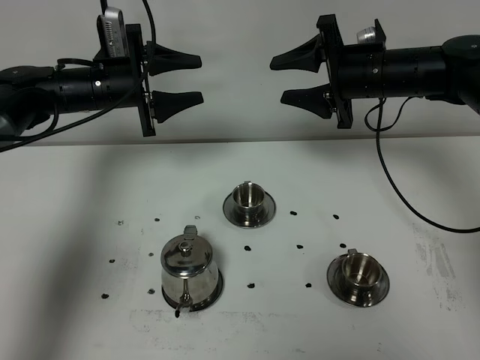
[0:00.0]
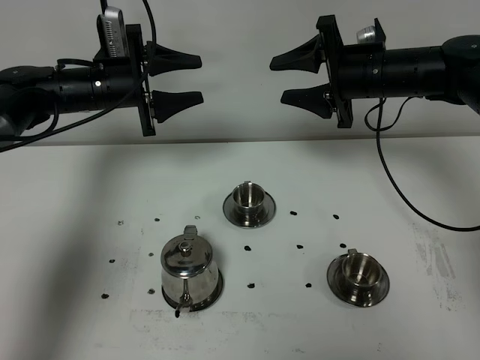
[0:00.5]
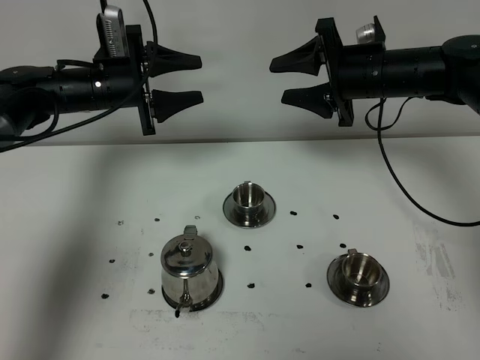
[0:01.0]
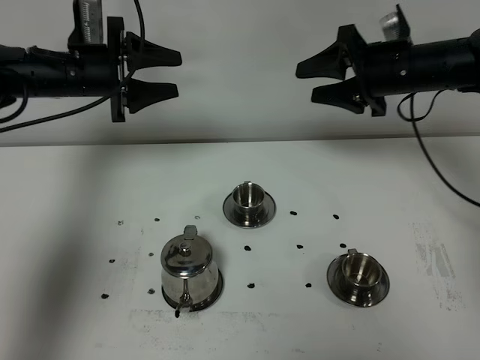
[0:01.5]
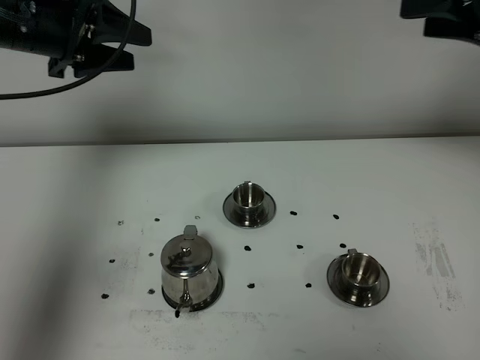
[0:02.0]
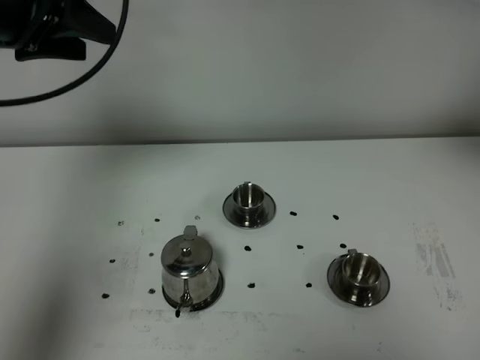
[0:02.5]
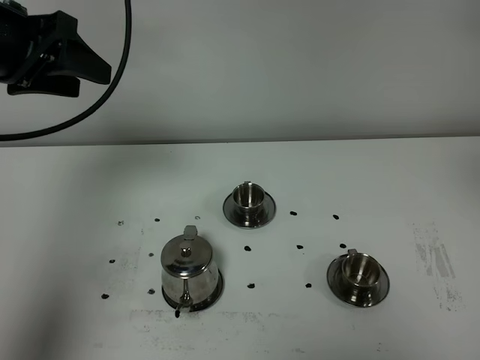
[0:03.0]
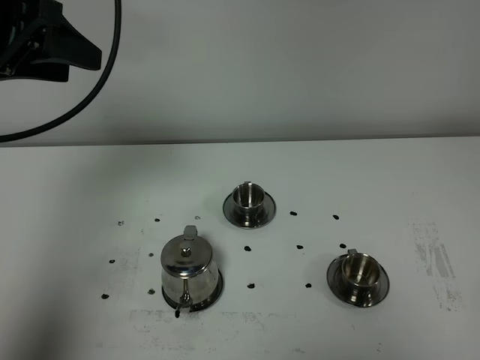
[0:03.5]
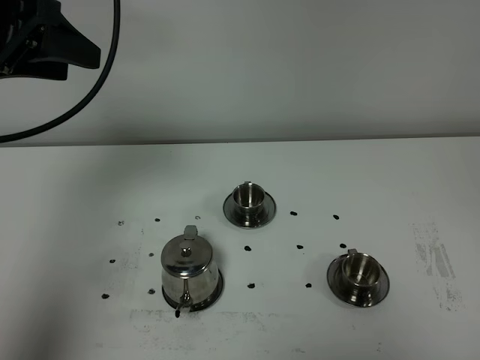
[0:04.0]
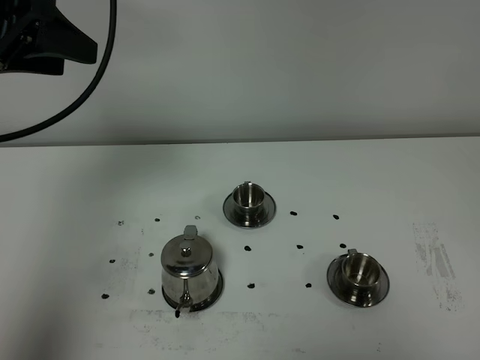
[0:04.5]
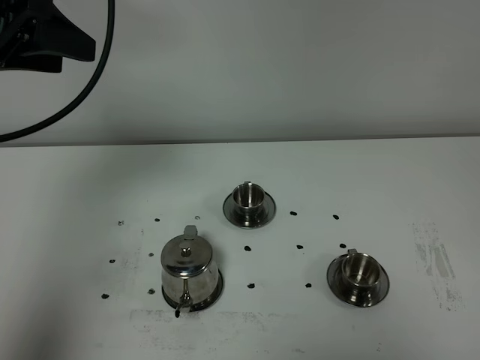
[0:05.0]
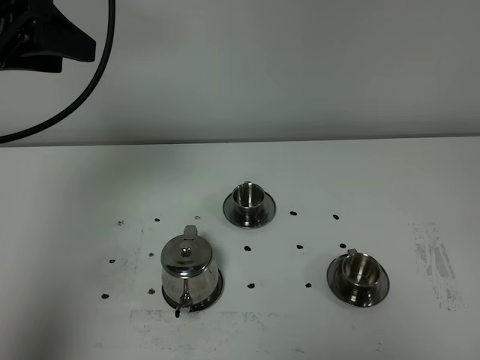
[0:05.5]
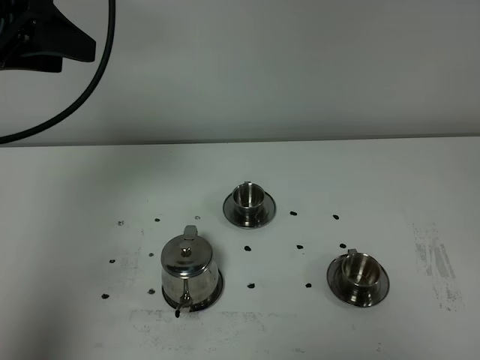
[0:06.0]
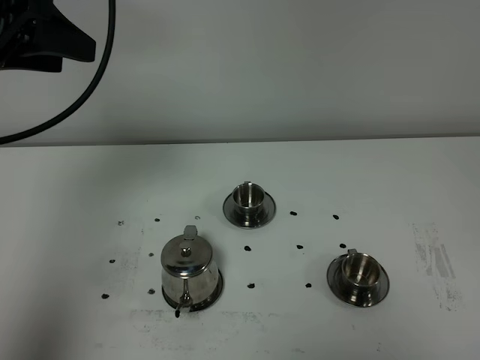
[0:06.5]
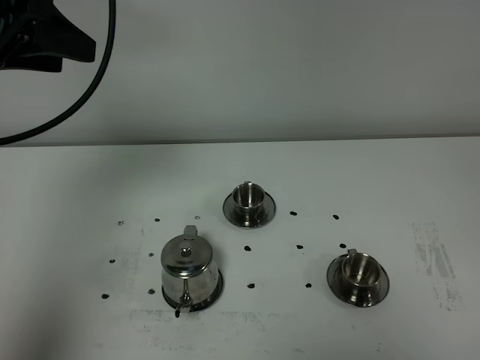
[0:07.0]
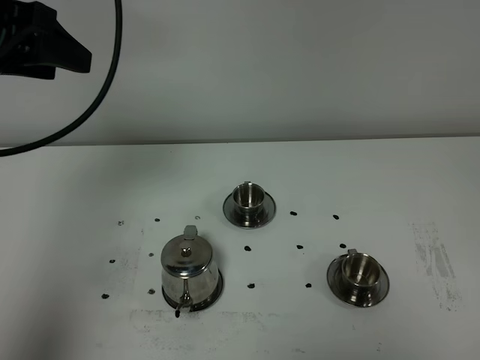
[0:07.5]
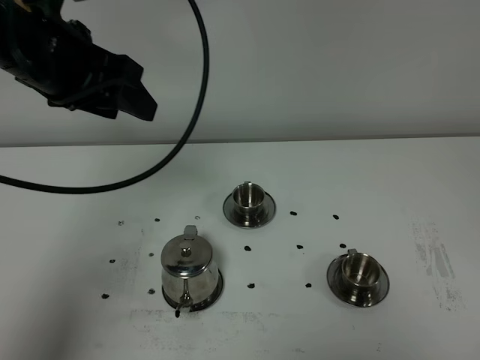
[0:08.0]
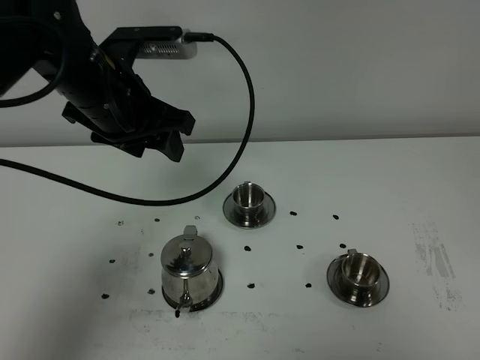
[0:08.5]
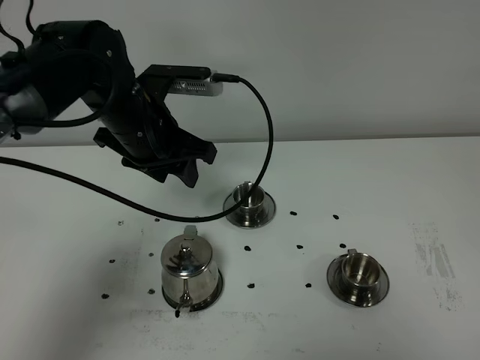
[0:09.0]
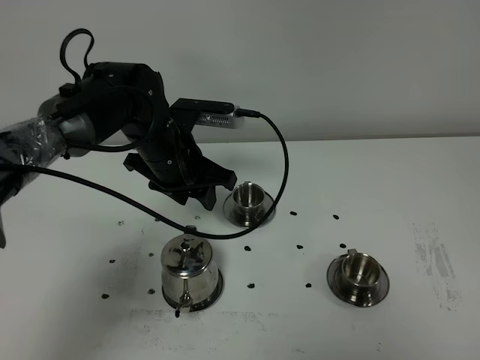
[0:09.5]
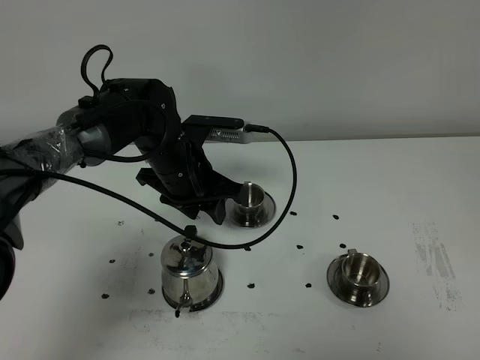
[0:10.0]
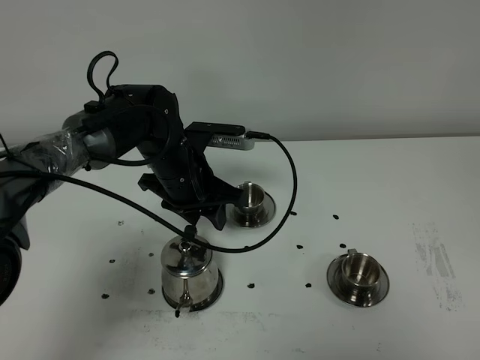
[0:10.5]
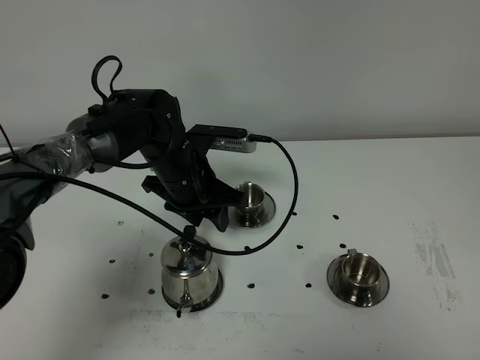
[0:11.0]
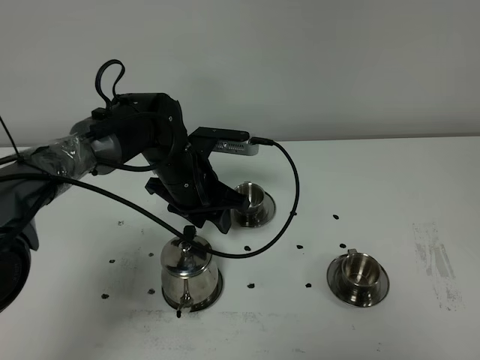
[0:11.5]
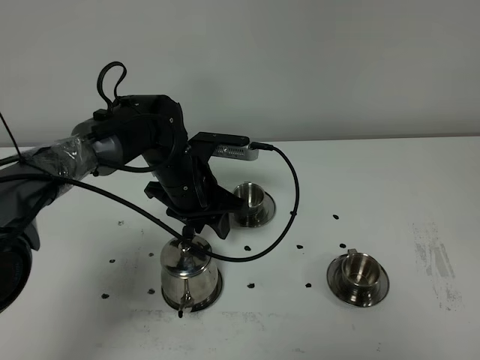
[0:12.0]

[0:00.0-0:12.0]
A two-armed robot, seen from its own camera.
Task of the whole recording: grasp the stainless steel teapot and pour the tea into the two stainless steel teacups one by one, put the stainless steel teapot back in its original place.
0:00.0 to 0:02.0: The left gripper travels upward and backward by roughly 15 cm, while the right gripper goes some 20 cm upward, to the right and backward.
0:02.0 to 0:04.0: The left gripper heads backward and upward, covering roughly 10 cm; the right gripper is displaced backward by roughly 40 cm.
0:04.0 to 0:06.0: The grippers move only a little.
0:06.0 to 0:08.0: The left gripper is displaced to the right by approximately 5 cm.
0:08.0 to 0:10.0: The left gripper moves downward and to the right, some 20 cm.
0:10.0 to 0:12.0: The grippers stay close to where they were, moving slightly.

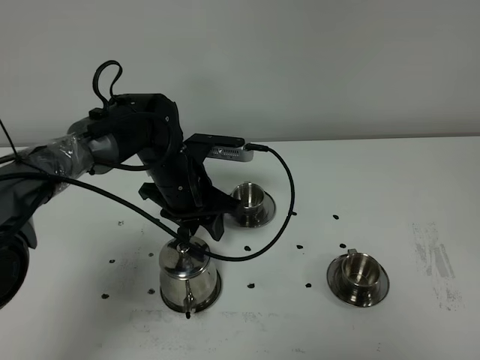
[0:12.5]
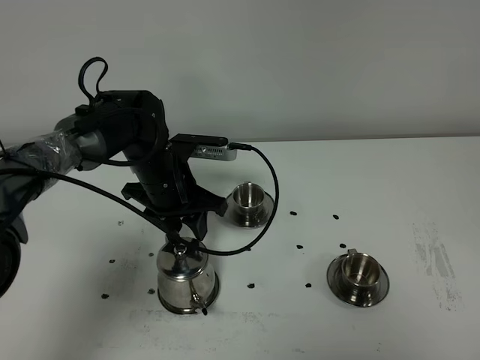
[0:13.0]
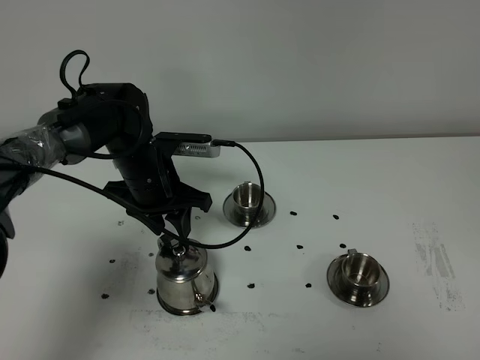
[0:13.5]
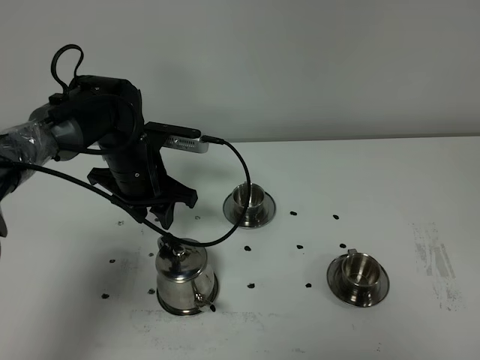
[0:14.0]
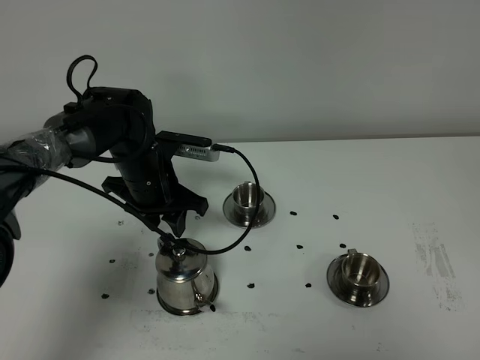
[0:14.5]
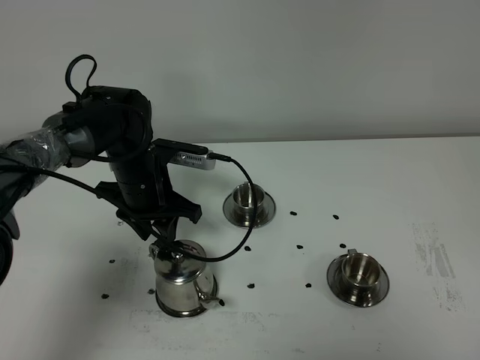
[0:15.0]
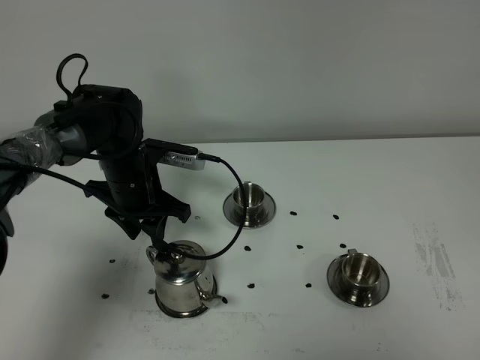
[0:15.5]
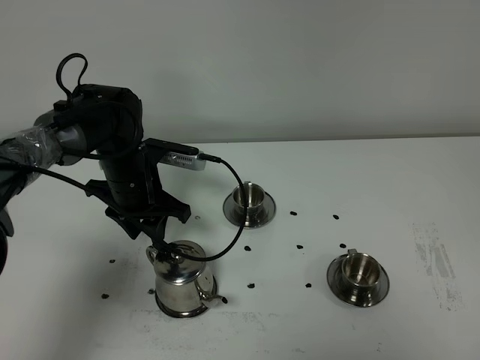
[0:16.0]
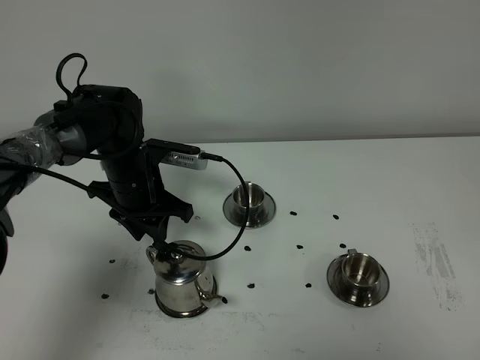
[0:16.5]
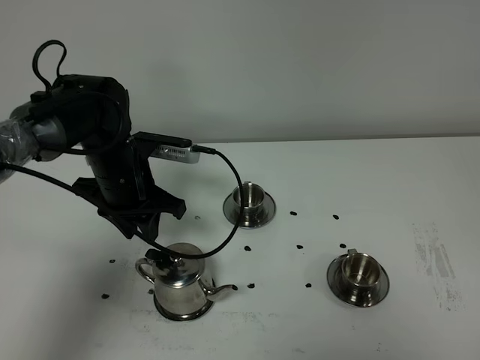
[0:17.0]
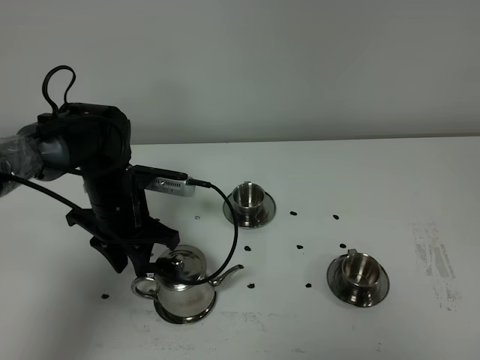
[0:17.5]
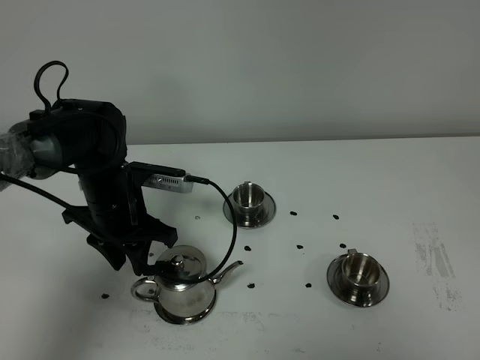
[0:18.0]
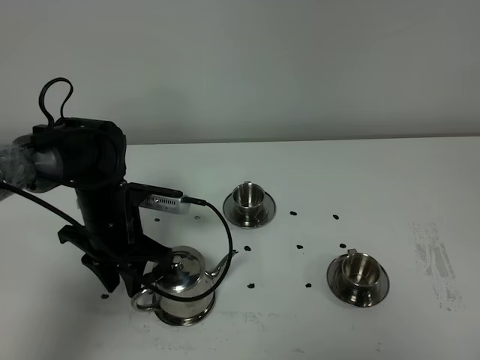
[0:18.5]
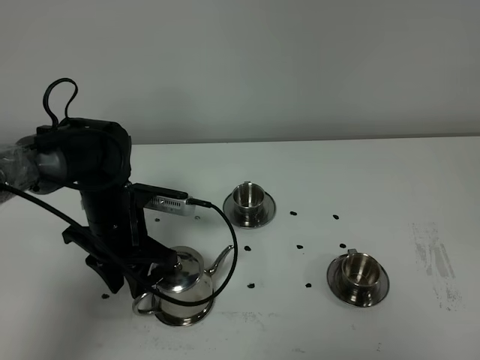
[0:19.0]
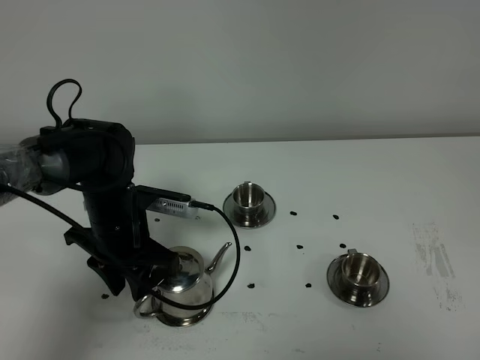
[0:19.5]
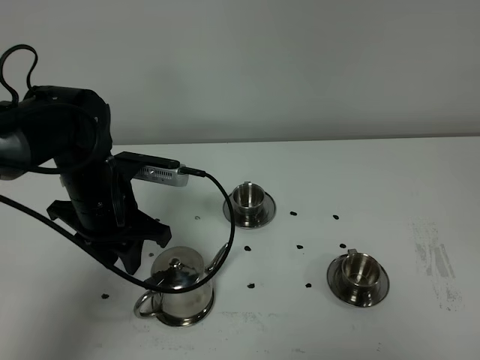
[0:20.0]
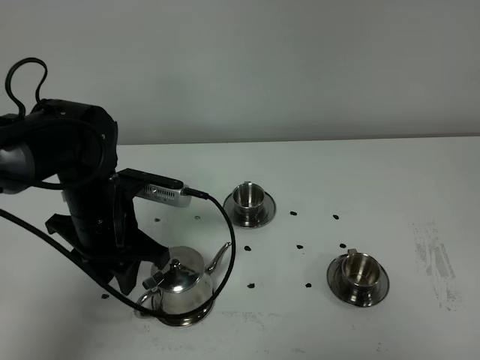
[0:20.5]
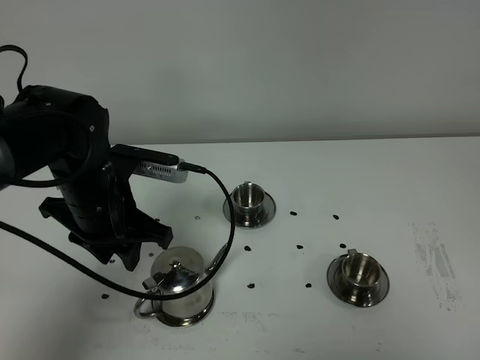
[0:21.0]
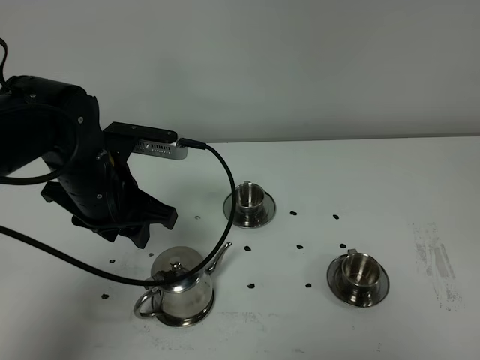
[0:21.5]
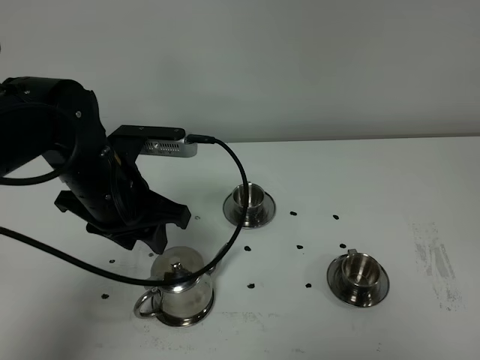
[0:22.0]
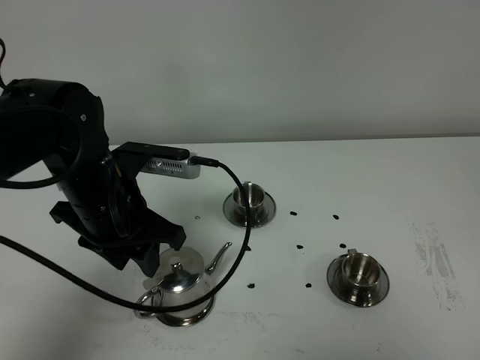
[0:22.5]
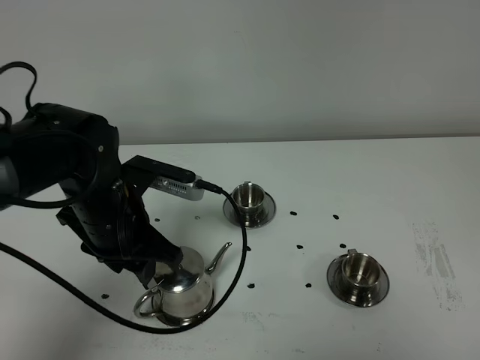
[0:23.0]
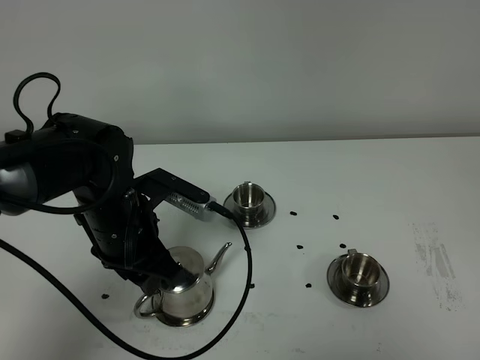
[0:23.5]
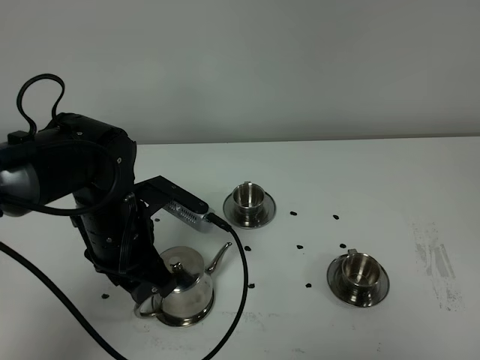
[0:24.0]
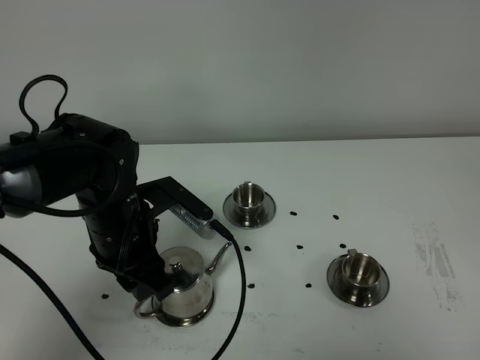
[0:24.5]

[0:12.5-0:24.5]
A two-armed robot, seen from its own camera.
Task of the whole recording: grasp the stainless steel teapot and pour the tea into the two stainless steel teacups one by one, put the stainless steel teapot back in its original place.
0:12.5 to 0:16.5: The grippers move only a little.
0:16.5 to 0:18.5: The left gripper is displaced backward by roughly 5 cm.
0:18.5 to 0:20.5: The left gripper changes place by roughly 5 cm.
0:20.5 to 0:22.5: The left gripper changes place by about 5 cm.

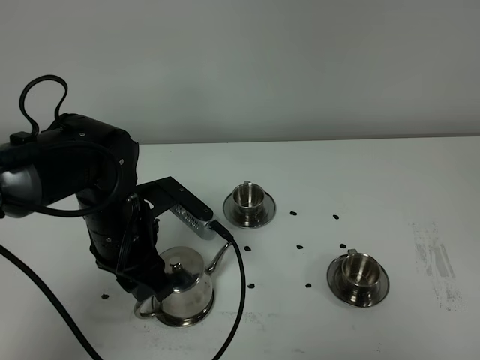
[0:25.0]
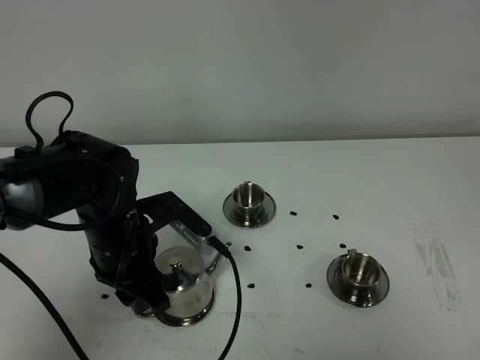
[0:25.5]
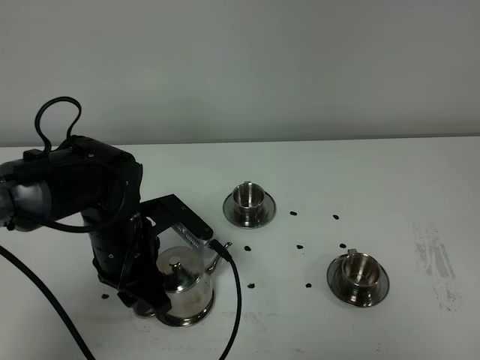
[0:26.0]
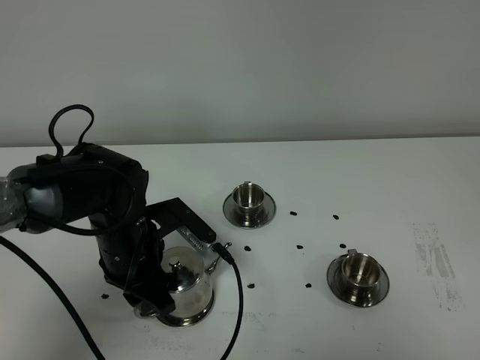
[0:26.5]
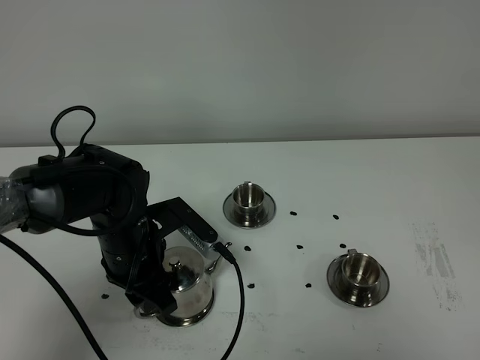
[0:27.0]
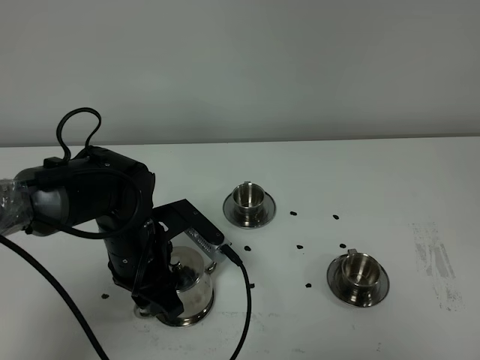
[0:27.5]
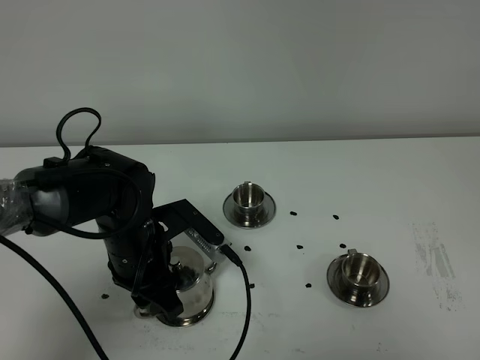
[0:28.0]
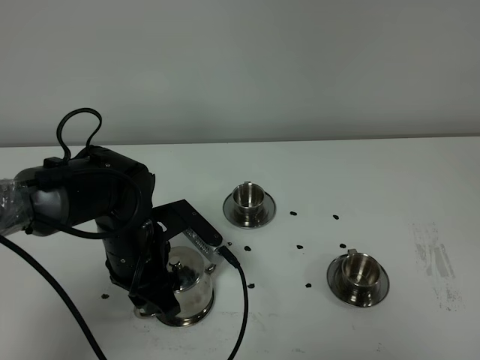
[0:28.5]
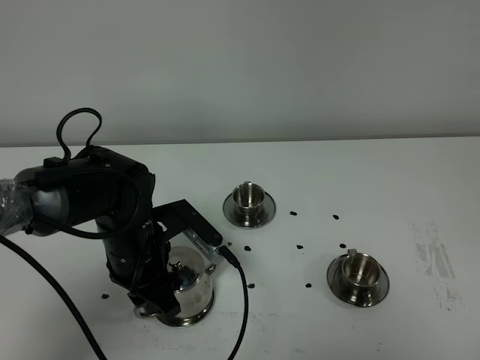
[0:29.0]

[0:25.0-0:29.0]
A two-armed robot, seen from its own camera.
Task of the whole recording: grasp the stainless steel teapot and pour the tea into the two stainless steel teacups one by one, put the stainless steel teapot back in its original place.
0:25.0 to 0:27.0: The grippers move only a little.
0:27.0 to 0:29.0: The two grippers keep their place.
